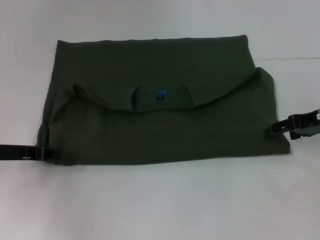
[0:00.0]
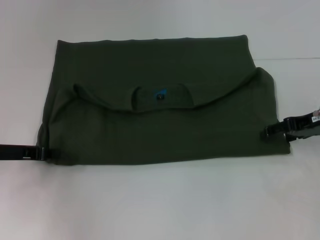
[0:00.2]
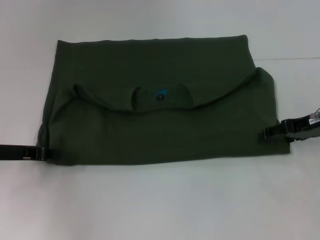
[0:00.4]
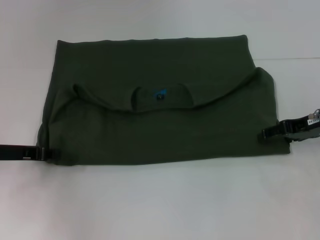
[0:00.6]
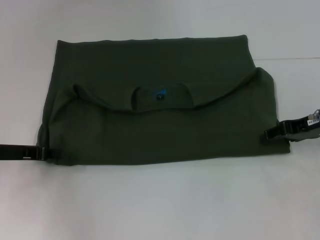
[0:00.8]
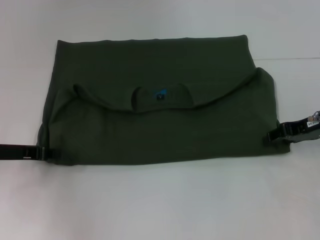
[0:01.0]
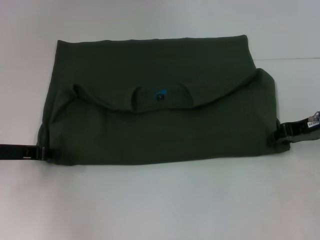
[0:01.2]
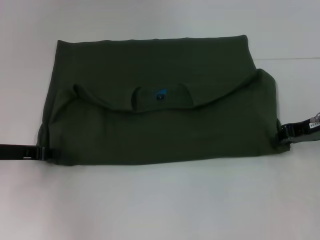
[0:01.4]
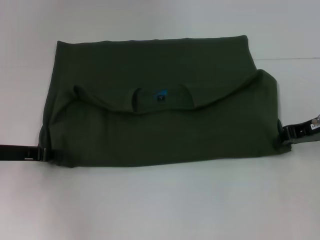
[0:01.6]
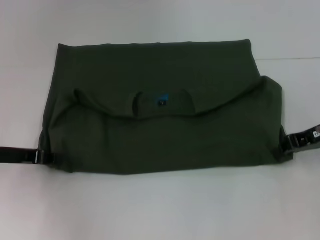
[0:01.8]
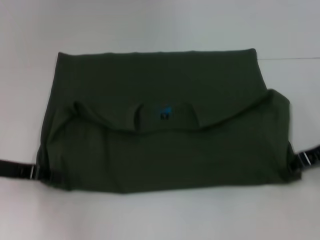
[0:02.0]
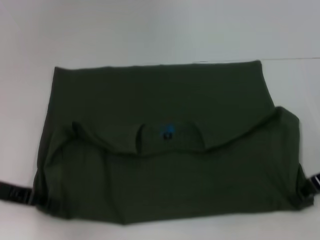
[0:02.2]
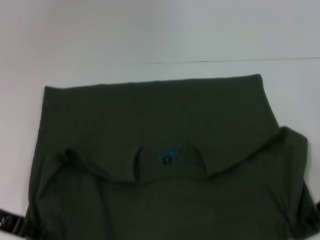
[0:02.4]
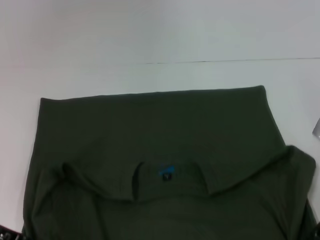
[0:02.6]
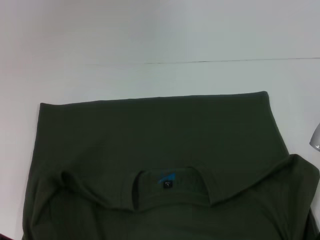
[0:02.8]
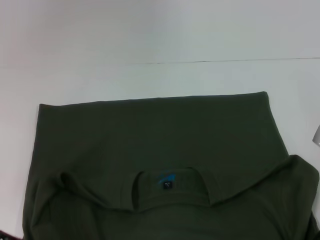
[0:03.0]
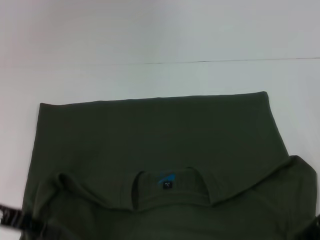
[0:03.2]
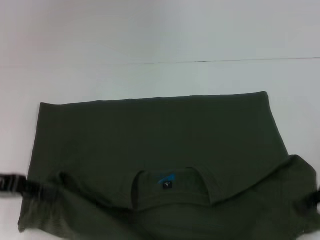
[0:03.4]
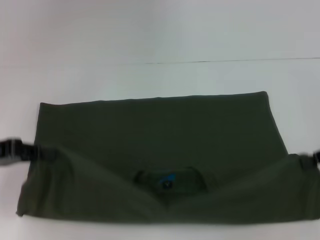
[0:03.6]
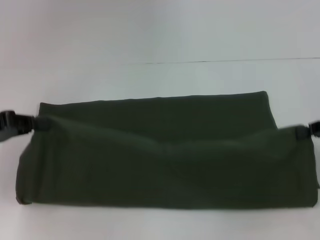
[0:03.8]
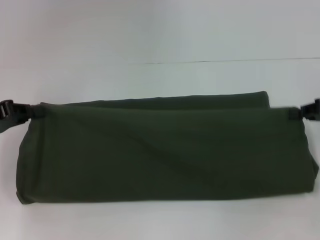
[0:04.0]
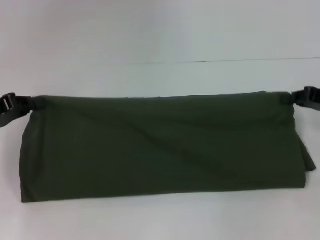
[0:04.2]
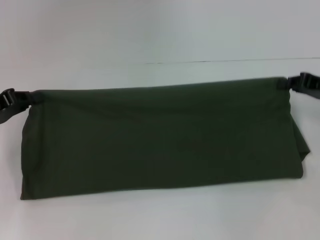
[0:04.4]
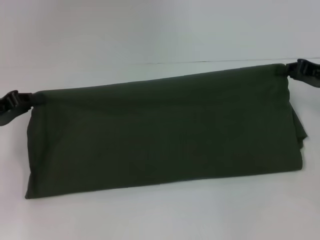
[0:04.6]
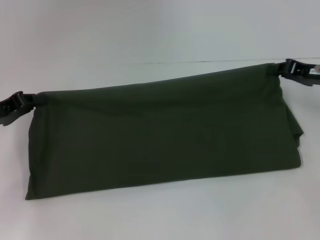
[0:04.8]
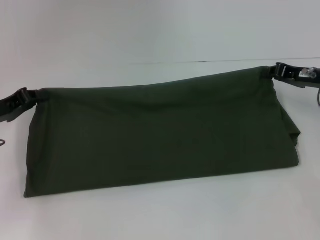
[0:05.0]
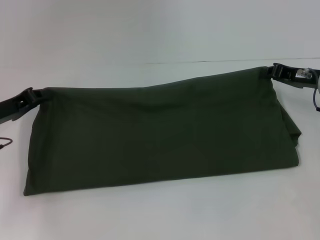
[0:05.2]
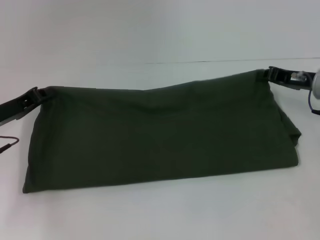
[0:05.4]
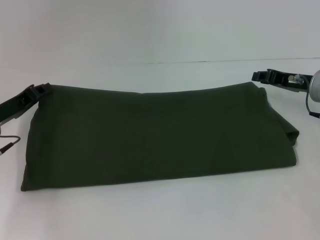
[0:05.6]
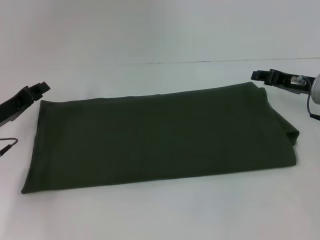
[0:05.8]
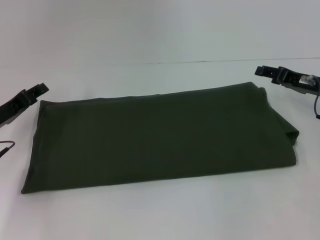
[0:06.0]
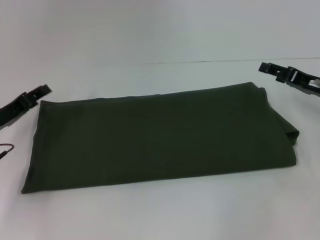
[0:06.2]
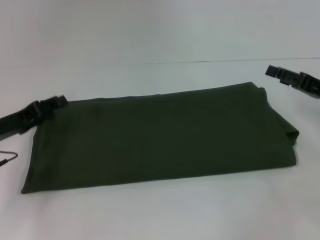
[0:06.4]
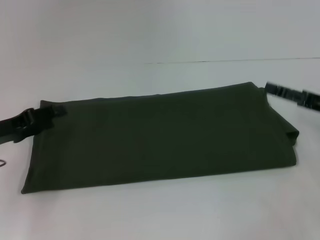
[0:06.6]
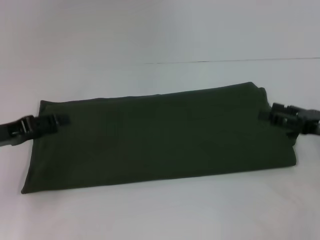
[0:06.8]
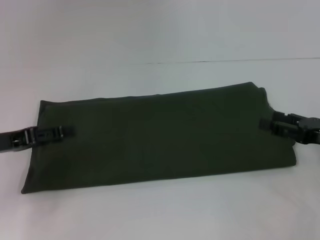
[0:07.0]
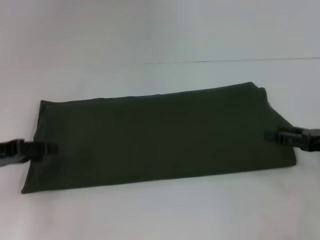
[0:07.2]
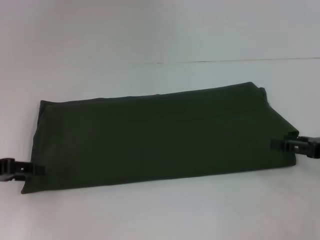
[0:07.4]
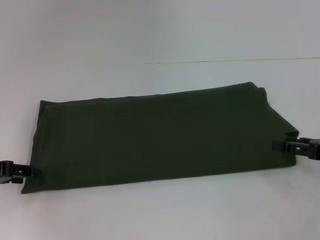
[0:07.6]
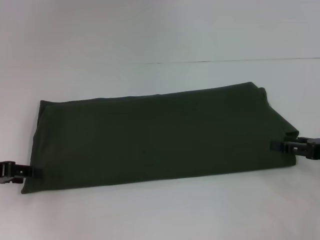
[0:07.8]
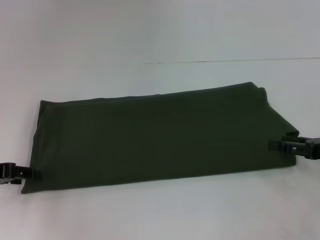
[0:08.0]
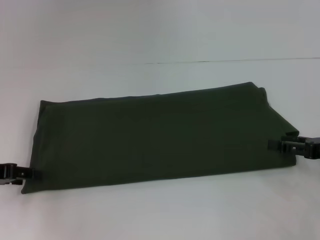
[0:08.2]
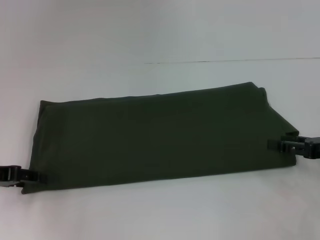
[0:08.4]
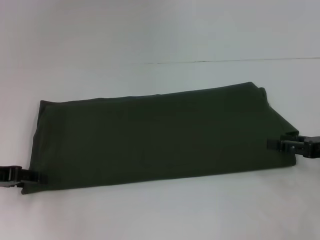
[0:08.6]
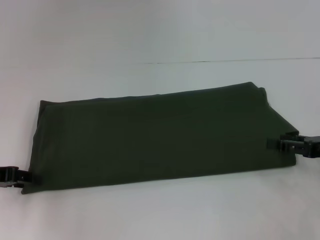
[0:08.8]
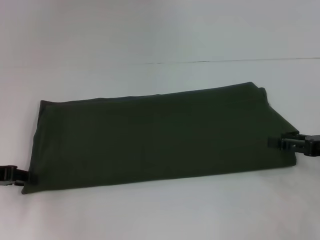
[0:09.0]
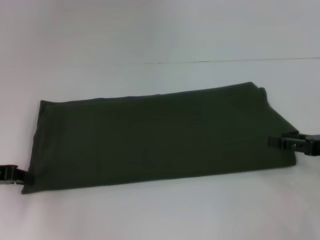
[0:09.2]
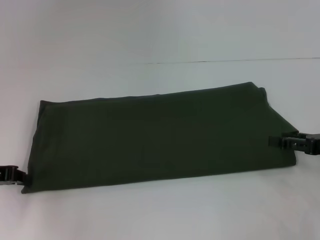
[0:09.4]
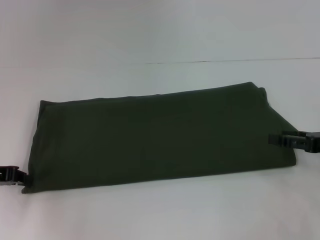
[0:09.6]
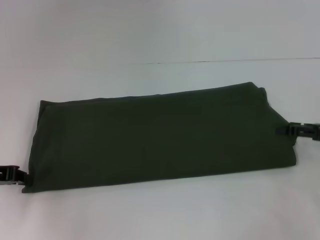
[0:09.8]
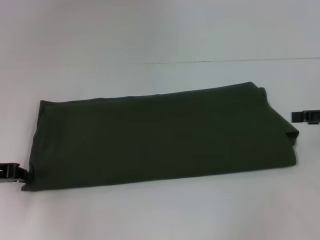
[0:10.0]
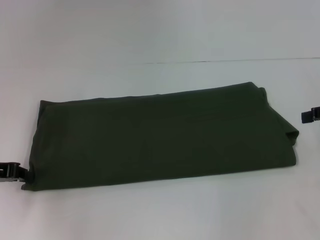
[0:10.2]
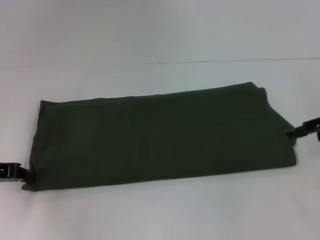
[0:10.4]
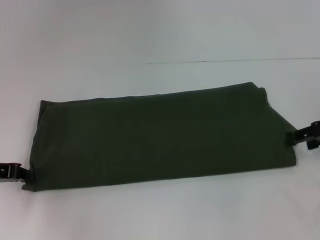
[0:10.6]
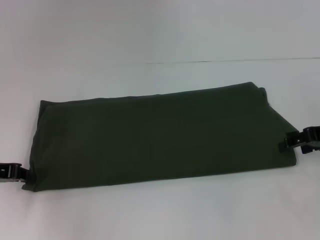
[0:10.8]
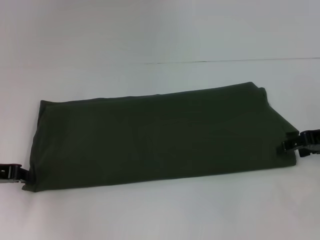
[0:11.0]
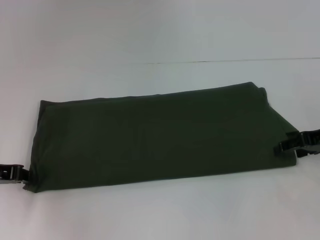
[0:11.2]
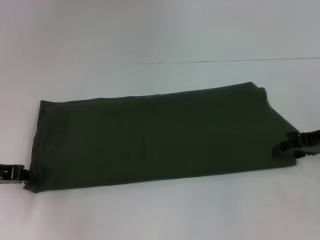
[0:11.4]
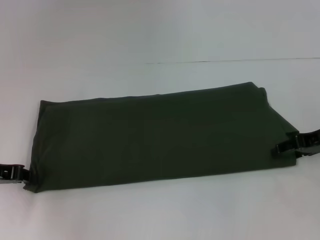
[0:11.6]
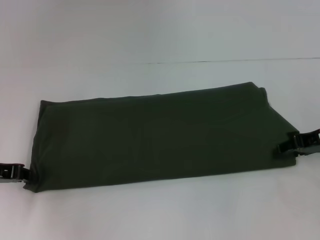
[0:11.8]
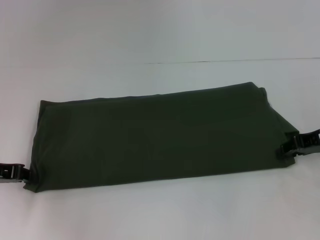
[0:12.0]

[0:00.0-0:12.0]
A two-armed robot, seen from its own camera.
Step, 0:00.0 to 0:02.8: Pull the clothes with your left hand.
Step, 0:00.0 to 0:02.8: Pull the clothes with your right hand.
Step, 0:03.0 to 0:06.0: Fold the clothes with your left hand.
Step, 0:03.0 to 0:06.0: Fold the clothes with your right hand.
0:00.0 to 0:01.6: The right gripper closes its fingers.
0:01.6 to 0:03.0: Both grippers travel together backward, some 10 cm.
0:03.0 to 0:04.4: The left gripper travels forward by some 5 cm; the right gripper goes roughly 10 cm forward and to the right.
0:04.4 to 0:06.0: The left gripper is displaced downward by about 5 cm. Meanwhile the right gripper moves roughly 5 cm, and opens.
0:06.0 to 0:07.6: The left gripper travels upward by approximately 5 cm, and opens. Meanwhile the right gripper shifts some 10 cm backward and to the right.
0:09.0 to 0:10.4: The right gripper heads upward and forward, covering roughly 10 cm; the left gripper closes up.
0:10.4 to 0:12.0: The right gripper goes approximately 5 cm downward.

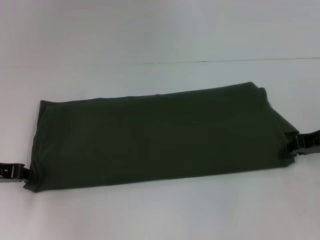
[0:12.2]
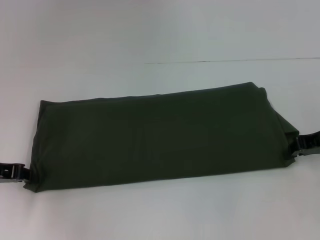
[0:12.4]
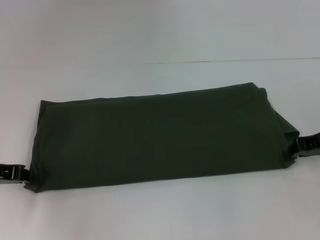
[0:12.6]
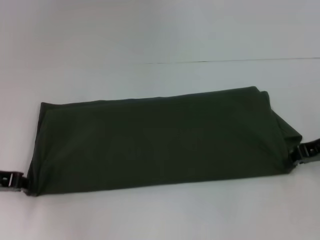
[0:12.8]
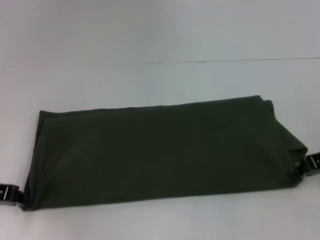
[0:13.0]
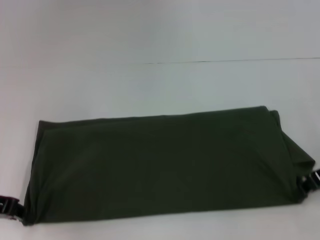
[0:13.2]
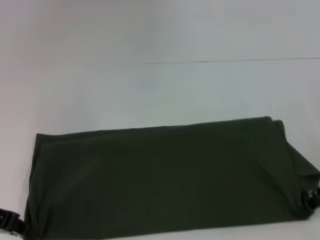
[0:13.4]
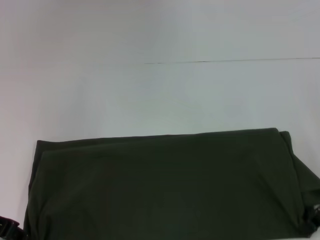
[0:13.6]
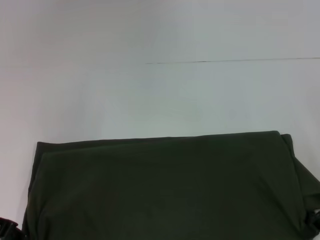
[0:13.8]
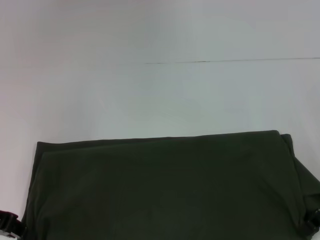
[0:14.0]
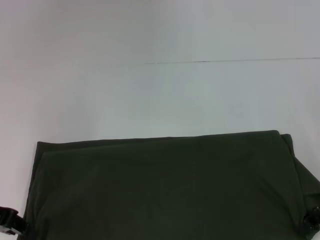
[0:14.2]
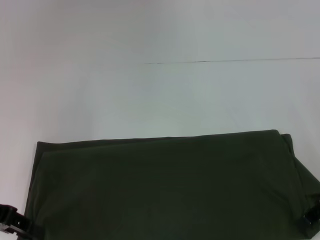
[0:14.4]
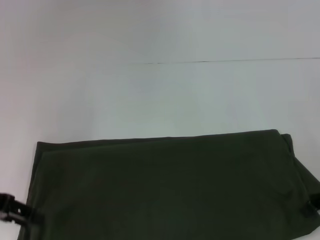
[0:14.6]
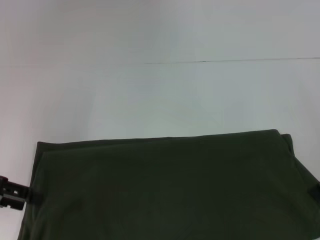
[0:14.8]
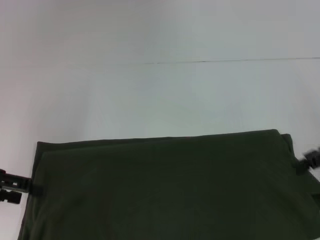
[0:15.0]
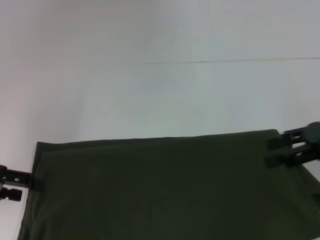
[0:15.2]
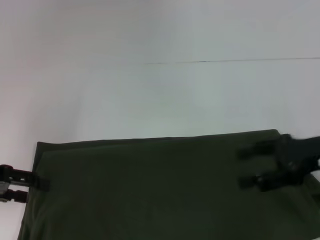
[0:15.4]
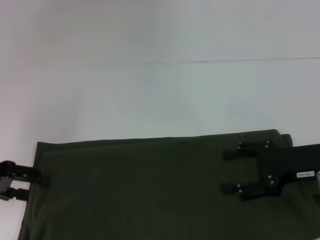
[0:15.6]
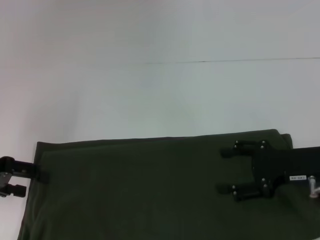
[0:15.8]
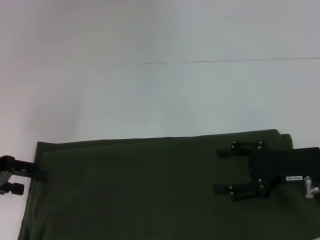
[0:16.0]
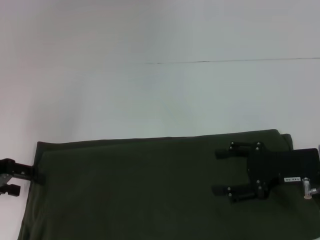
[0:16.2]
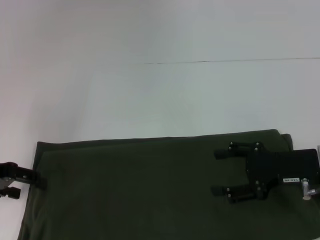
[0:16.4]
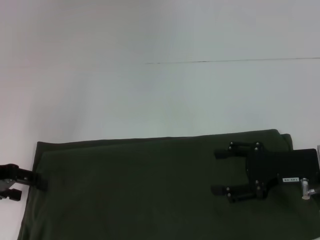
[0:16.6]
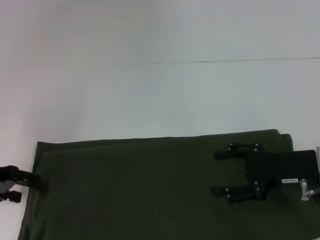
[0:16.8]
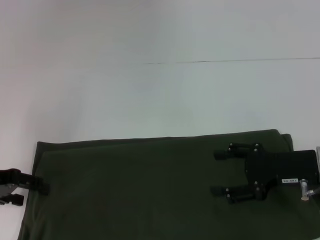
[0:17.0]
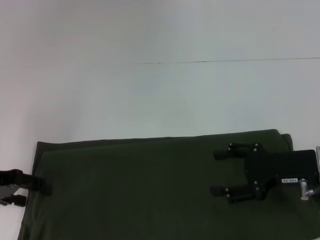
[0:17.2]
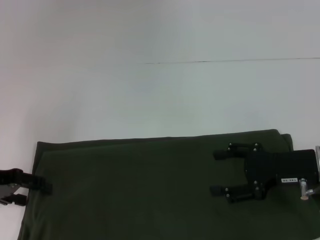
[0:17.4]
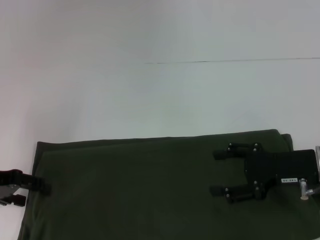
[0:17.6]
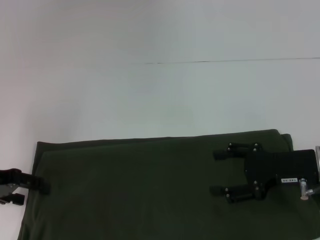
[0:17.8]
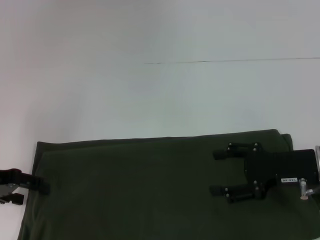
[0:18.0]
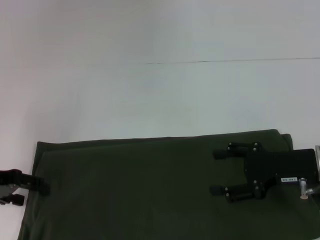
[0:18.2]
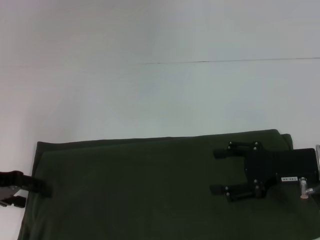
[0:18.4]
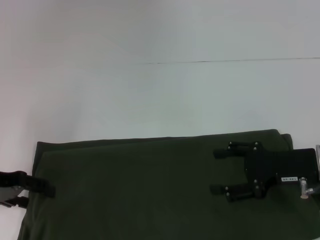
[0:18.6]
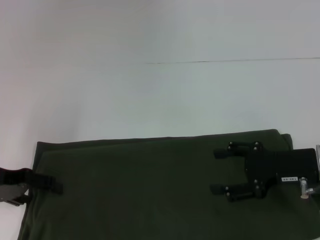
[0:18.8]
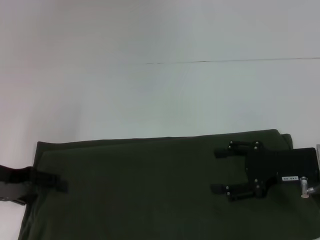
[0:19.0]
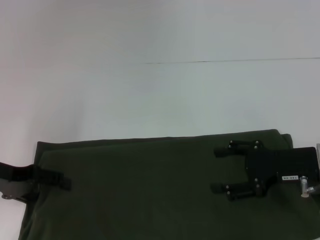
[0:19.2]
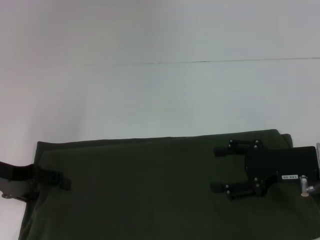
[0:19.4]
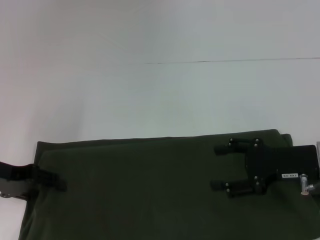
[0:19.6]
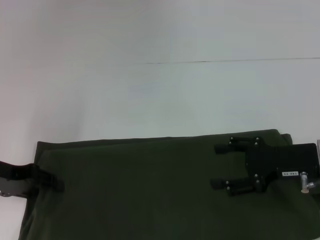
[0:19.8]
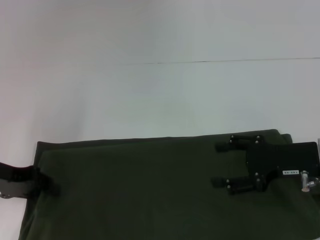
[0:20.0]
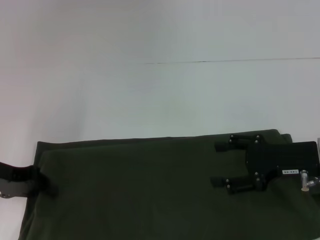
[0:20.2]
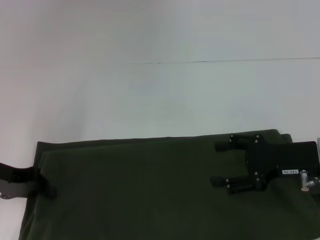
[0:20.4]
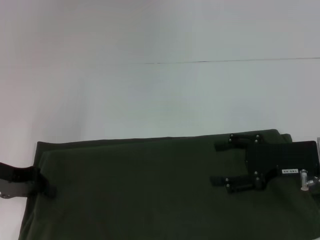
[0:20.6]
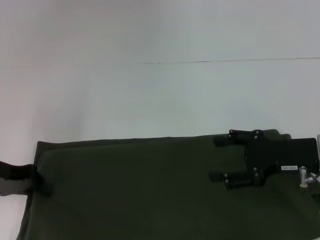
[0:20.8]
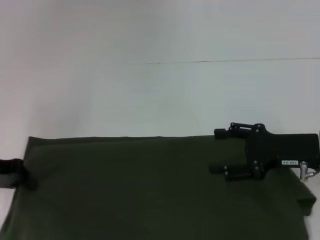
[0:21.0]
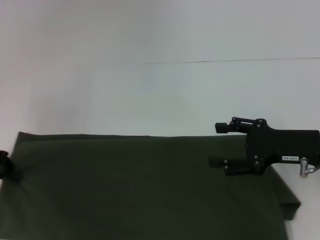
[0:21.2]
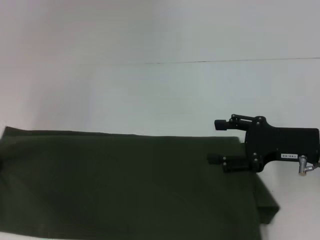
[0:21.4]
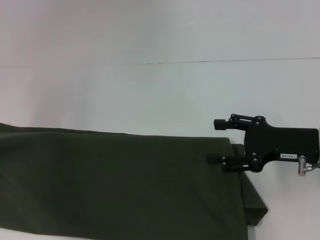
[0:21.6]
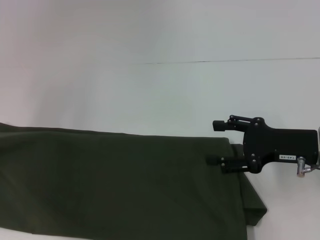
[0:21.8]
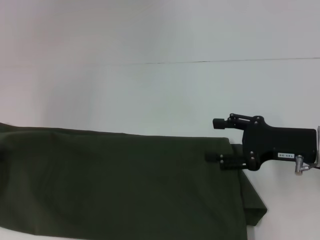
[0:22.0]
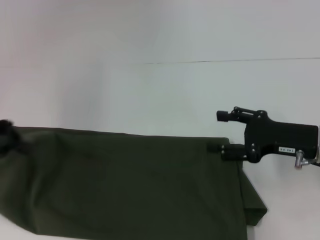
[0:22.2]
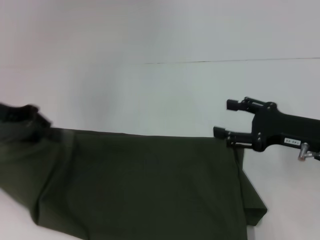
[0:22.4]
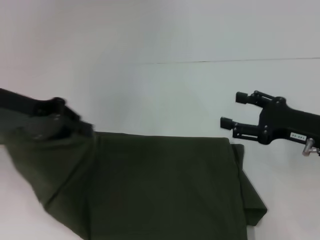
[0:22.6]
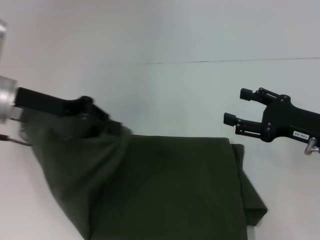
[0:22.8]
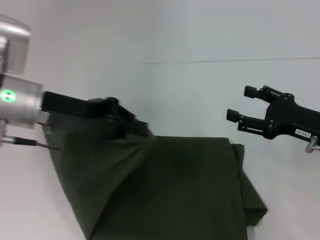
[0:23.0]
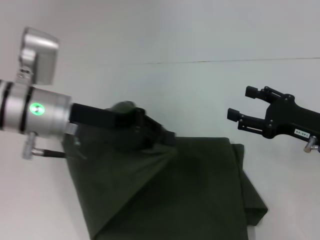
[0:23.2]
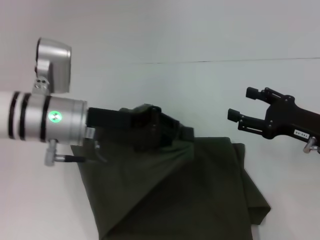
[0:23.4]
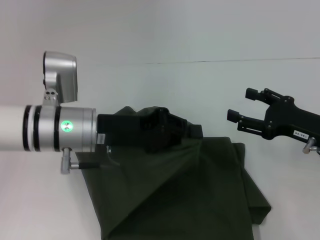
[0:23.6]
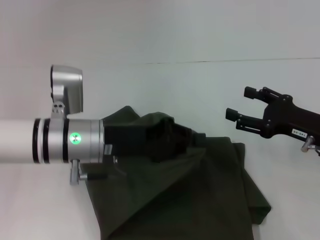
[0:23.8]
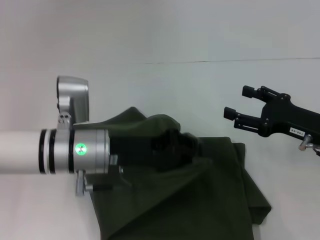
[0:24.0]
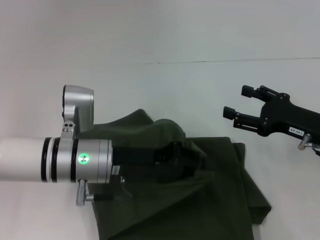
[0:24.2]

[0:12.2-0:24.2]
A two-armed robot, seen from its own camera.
0:12.2 to 0:13.8: The right gripper is displaced backward by about 5 cm.
0:13.8 to 0:15.2: The left gripper opens up. The right gripper moves upward, some 5 cm, and opens its fingers.
0:15.2 to 0:16.6: The right gripper travels downward and to the left by approximately 10 cm.
0:16.6 to 0:18.2: The two grippers keep their place.
0:18.2 to 0:19.8: The grippers stay close to where they were, moving slightly.
0:19.8 to 0:21.2: The left gripper closes up.
0:21.2 to 0:22.6: The left gripper heads to the right and upward, covering about 10 cm.
0:22.6 to 0:24.2: The left gripper moves to the right and downward, about 15 cm.
